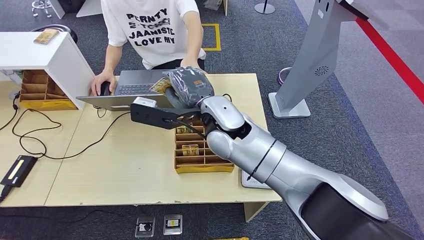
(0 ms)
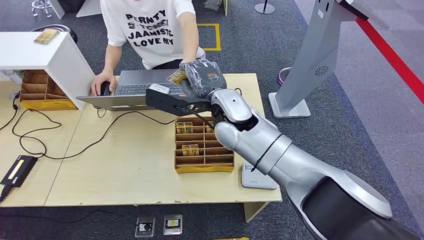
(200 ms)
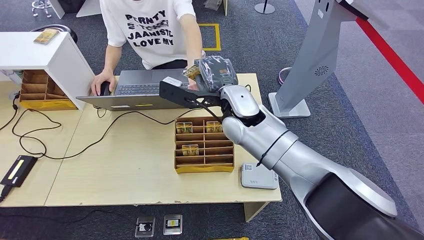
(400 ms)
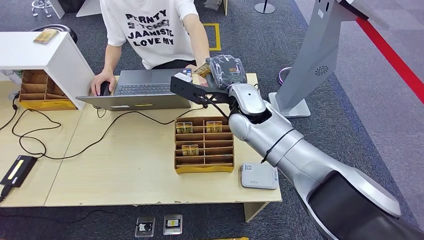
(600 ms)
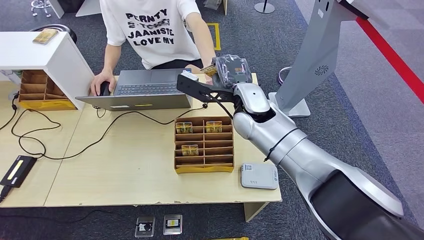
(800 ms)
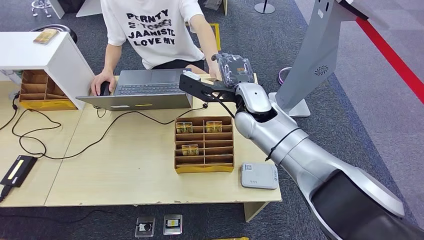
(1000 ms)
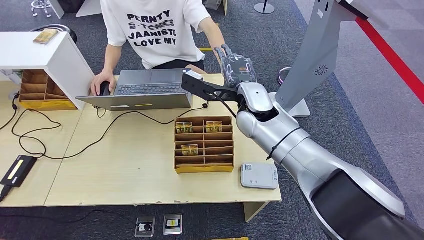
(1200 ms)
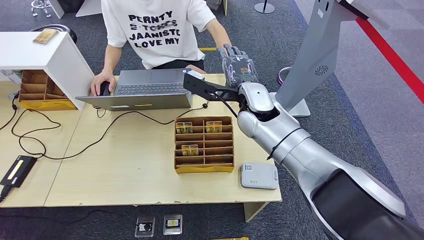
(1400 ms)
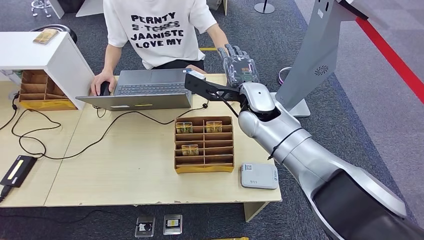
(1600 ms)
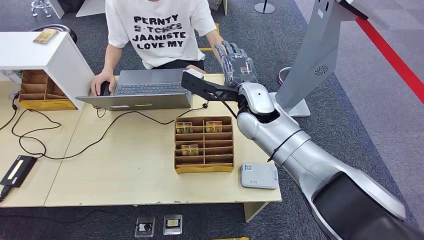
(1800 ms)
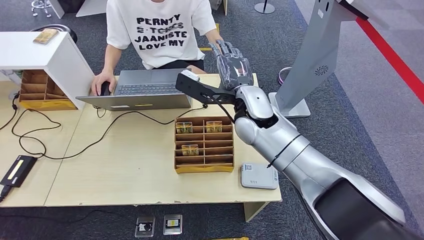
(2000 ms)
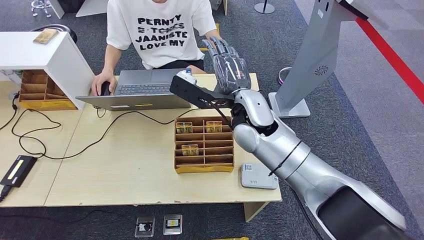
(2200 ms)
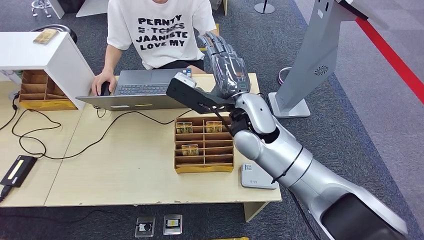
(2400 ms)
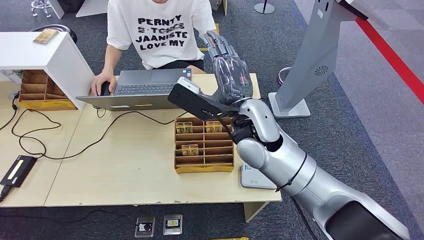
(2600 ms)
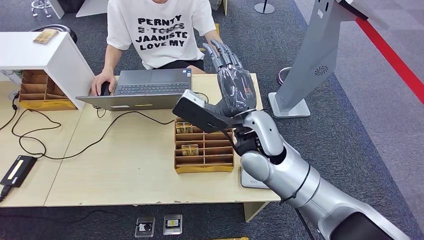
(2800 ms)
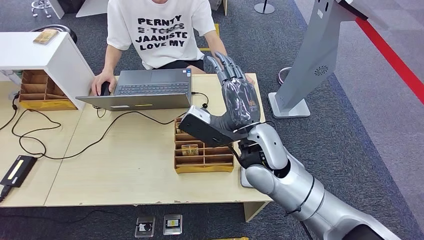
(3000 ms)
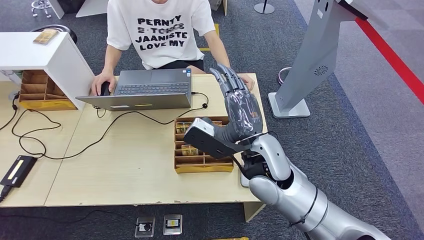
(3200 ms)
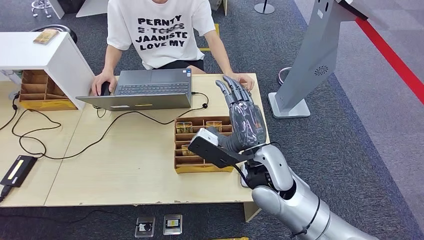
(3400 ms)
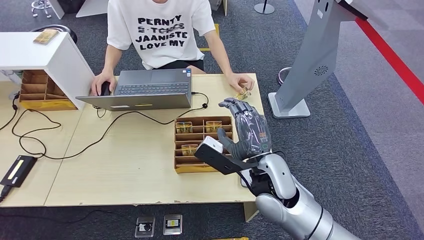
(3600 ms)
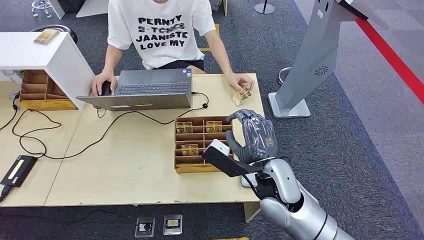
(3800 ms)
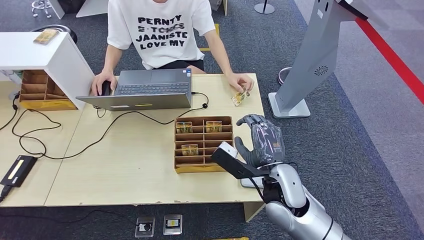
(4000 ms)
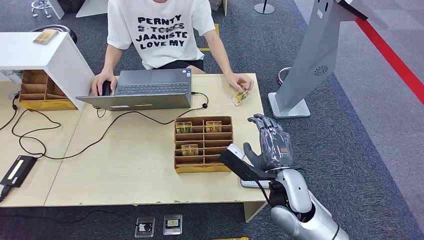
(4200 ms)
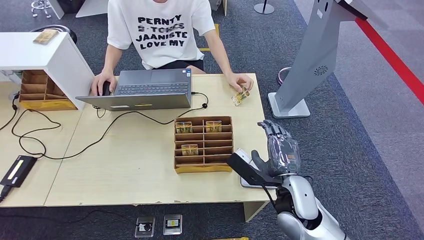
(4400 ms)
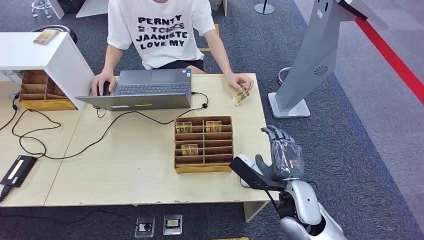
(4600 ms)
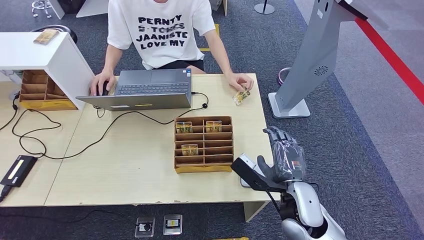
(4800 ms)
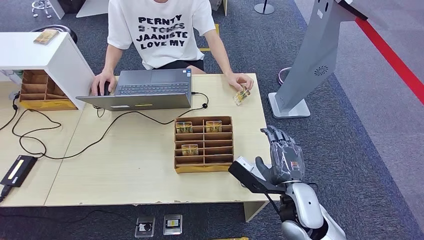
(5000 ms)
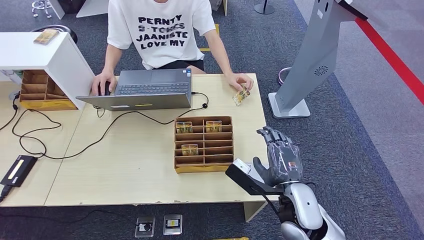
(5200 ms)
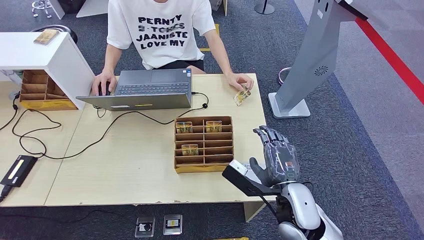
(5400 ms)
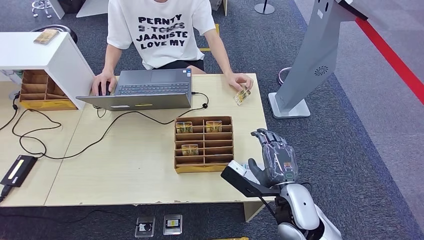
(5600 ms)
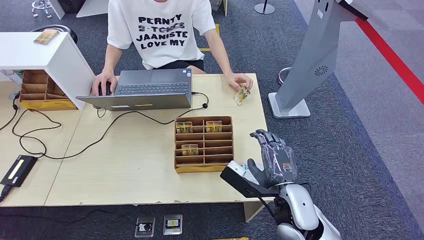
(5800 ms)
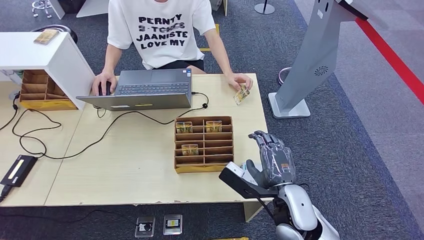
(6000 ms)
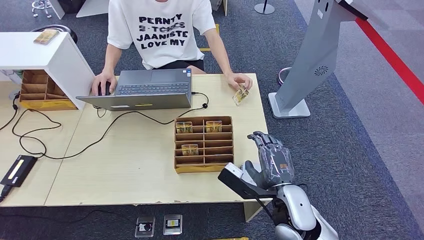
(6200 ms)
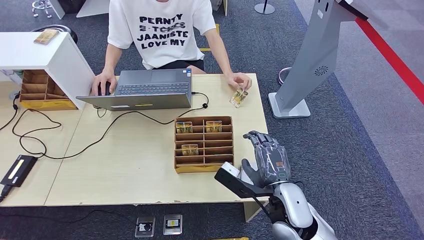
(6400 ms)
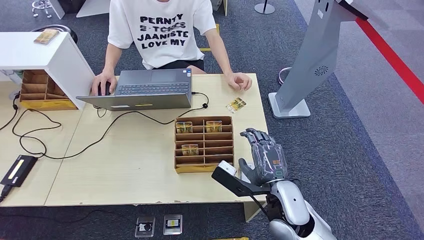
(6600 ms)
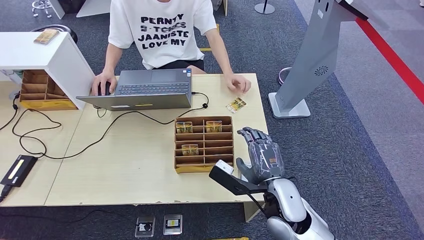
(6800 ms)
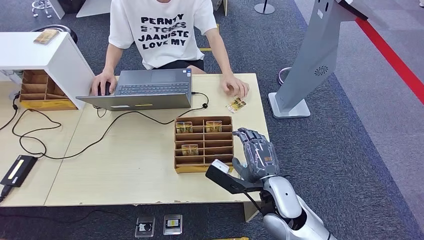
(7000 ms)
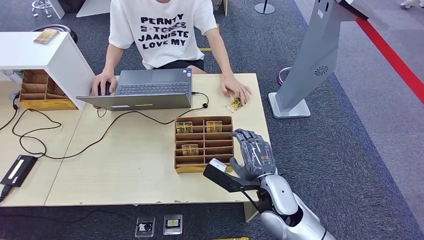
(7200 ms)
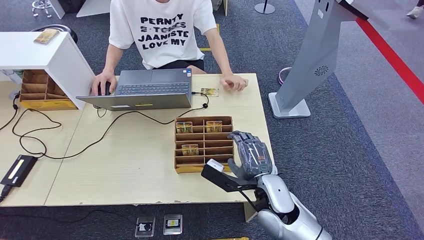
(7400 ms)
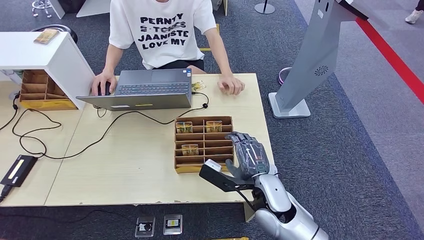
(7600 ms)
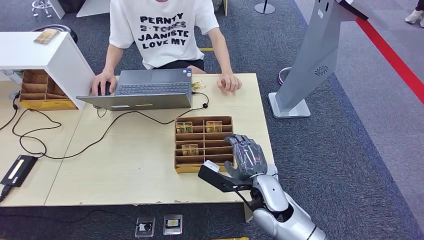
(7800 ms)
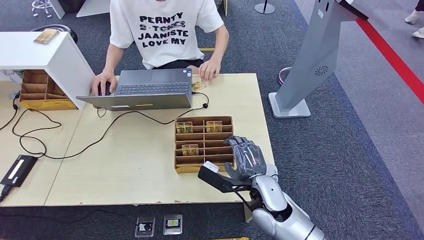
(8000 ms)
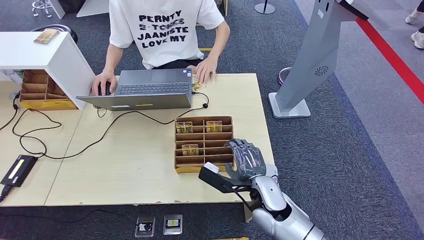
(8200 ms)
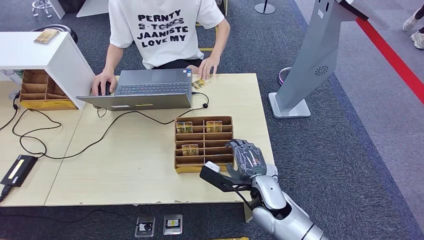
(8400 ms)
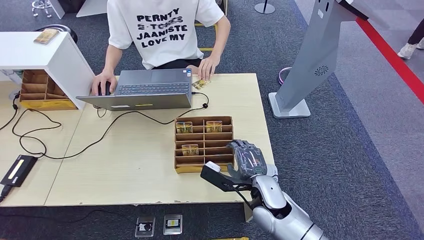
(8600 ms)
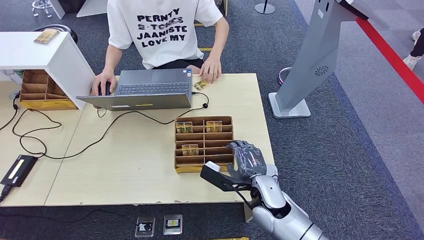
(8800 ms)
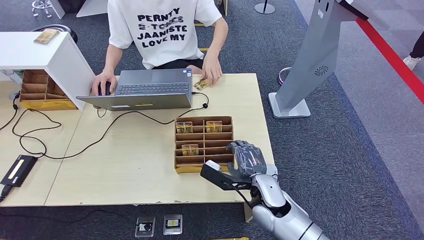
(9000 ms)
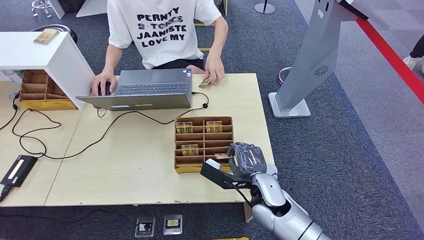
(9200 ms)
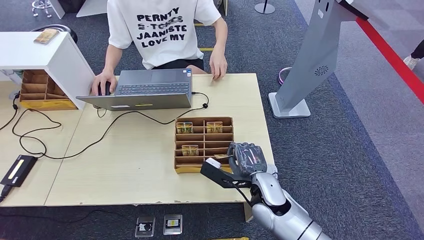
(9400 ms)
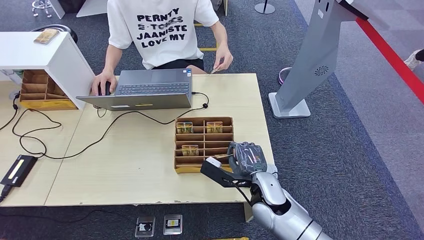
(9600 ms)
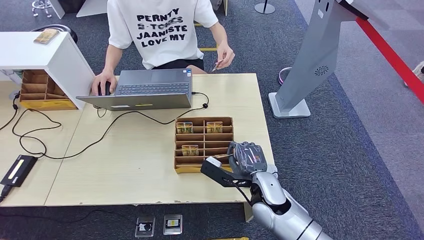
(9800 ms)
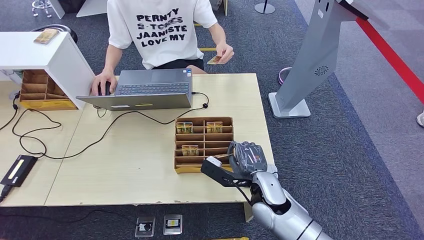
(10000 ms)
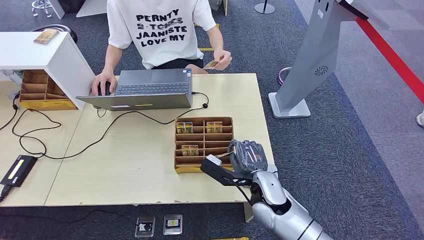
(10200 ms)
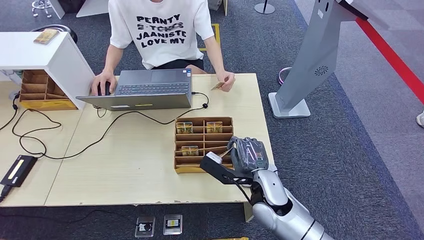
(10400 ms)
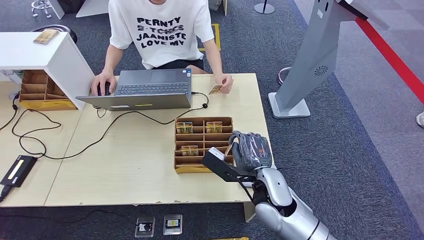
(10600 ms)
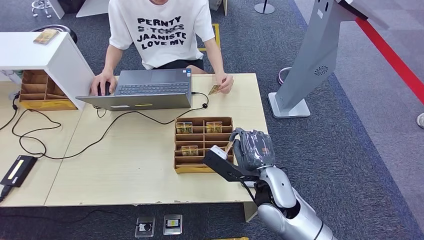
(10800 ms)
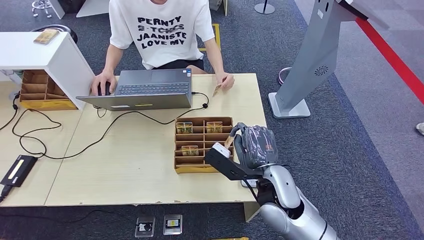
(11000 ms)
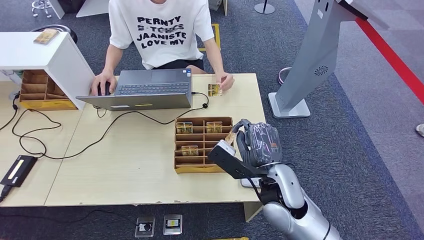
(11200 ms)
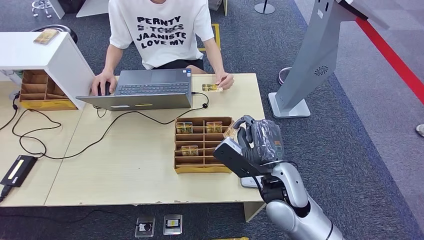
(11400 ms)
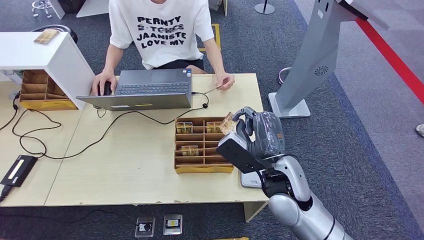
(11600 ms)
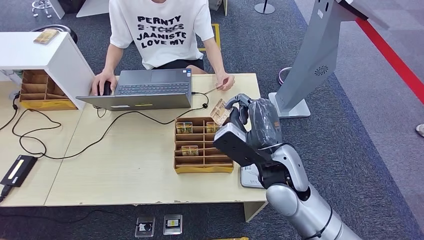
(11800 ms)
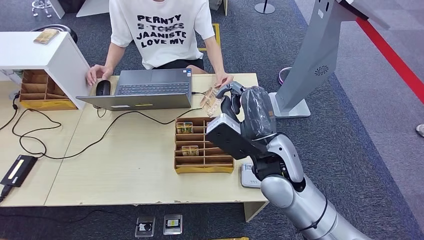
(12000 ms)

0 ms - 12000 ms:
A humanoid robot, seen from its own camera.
Step, 4600 ms - 11200 ms: Pick up the room key from the key card box.
0 ms - 1600 ms: The right hand heads to the right and forward, covering some 10 cm.
1600 ms - 3000 ms: The right hand travels backward by approximately 10 cm.
3000 ms - 4400 ms: The right hand heads downward, to the right and backward, covering approximately 15 cm.
4400 ms - 6000 ms: The hands stay close to where they were, moving slightly.
6000 ms - 7600 ms: The right hand ends up roughly 5 cm from where it was.
7600 ms - 10400 ms: The hands make only small movements.
10400 ms - 12000 ms: The right hand is displaced upward by roughly 15 cm.

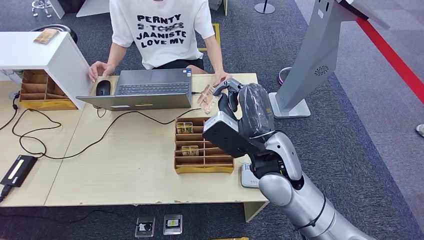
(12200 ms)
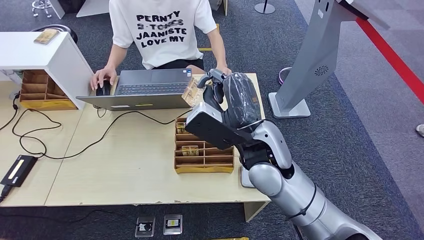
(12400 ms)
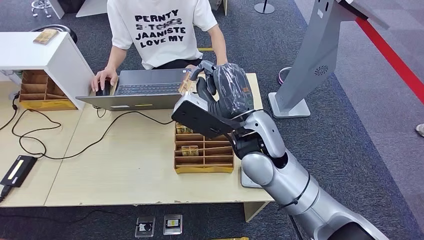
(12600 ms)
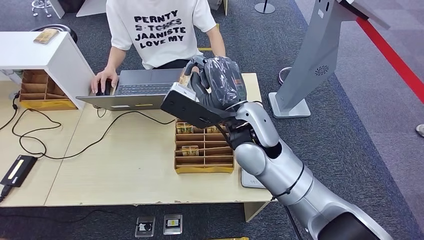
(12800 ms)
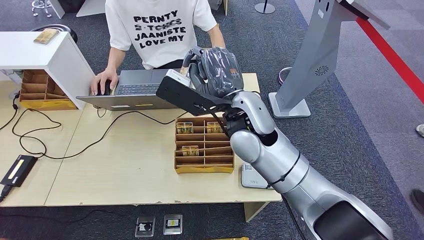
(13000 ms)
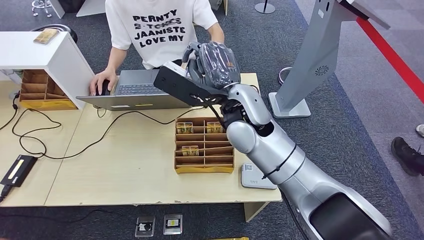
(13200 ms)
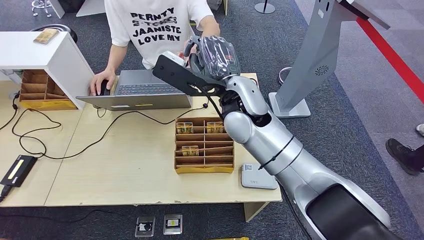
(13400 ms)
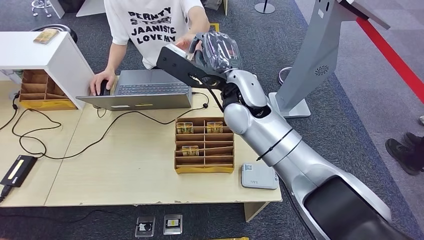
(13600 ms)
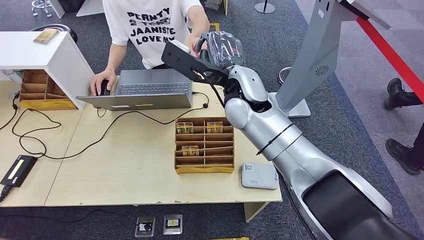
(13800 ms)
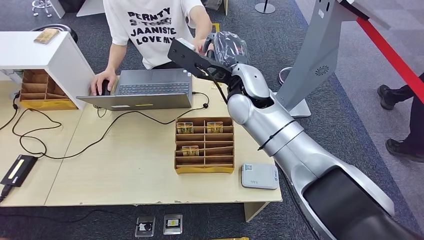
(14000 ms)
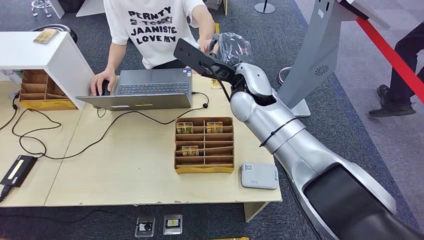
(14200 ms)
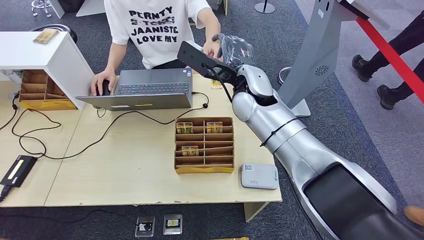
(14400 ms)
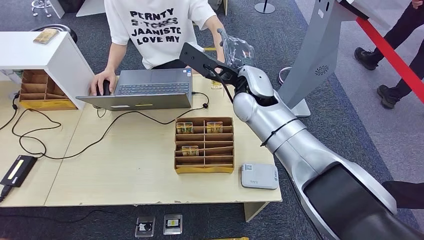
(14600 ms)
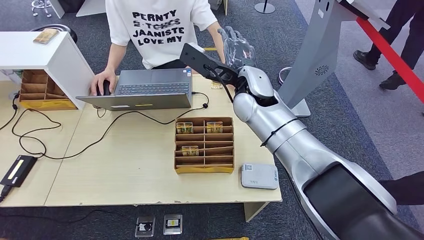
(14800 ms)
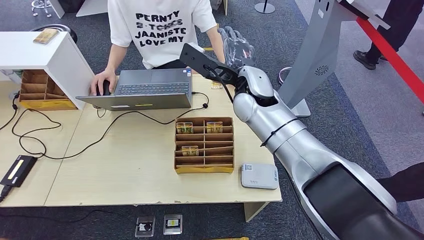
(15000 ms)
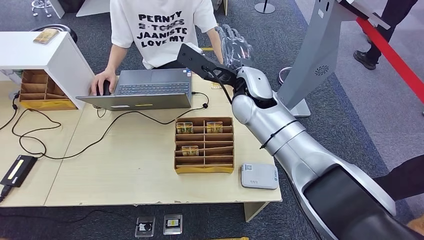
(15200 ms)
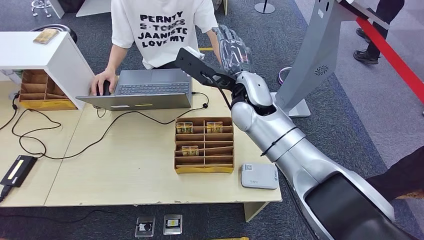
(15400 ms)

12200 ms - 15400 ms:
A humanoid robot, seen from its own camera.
Step, 12200 ms - 15400 ms: Hand the room key to the person.
13800 ms - 15400 ms: The hands move only a little.
